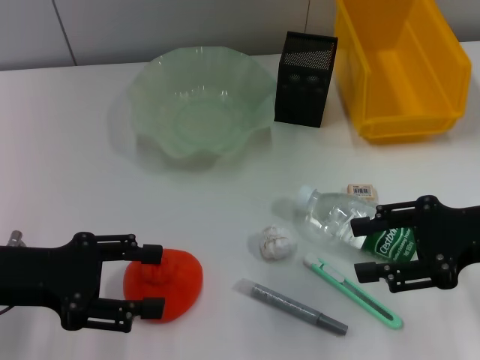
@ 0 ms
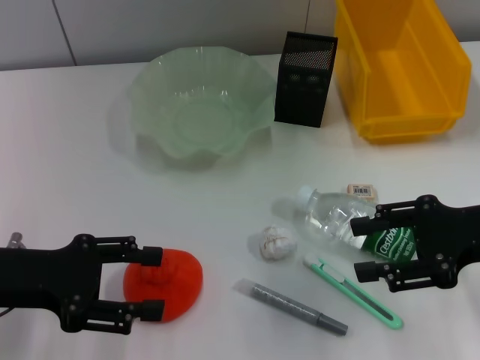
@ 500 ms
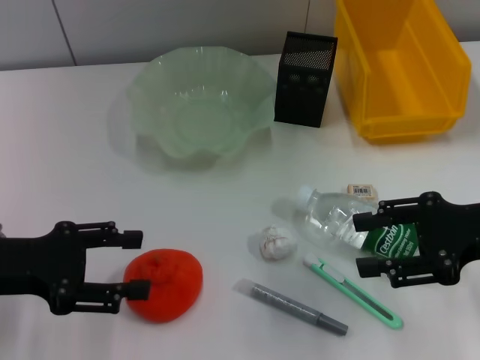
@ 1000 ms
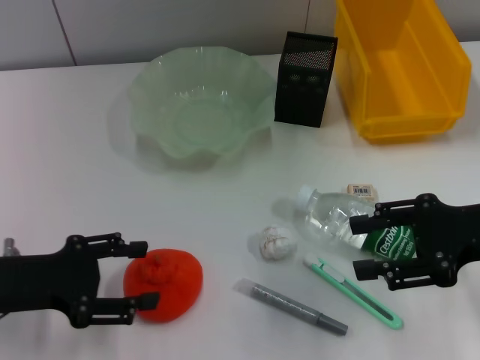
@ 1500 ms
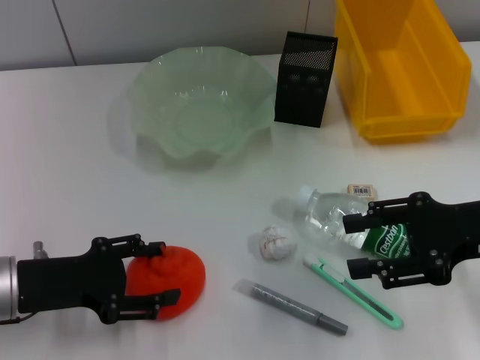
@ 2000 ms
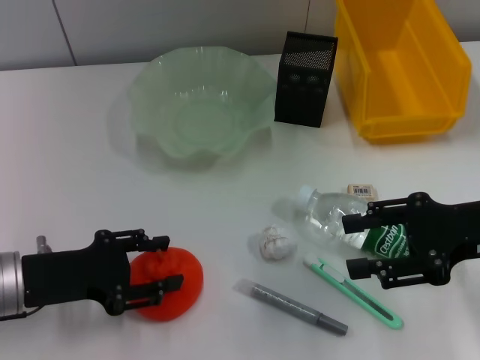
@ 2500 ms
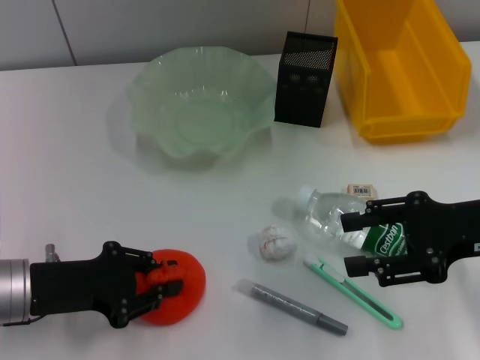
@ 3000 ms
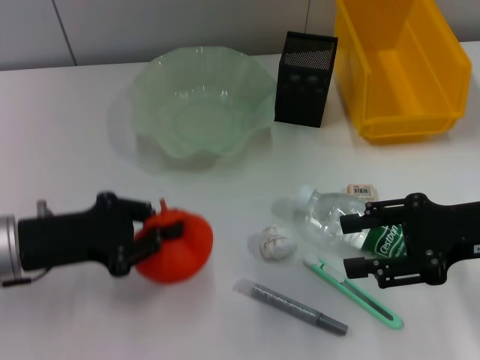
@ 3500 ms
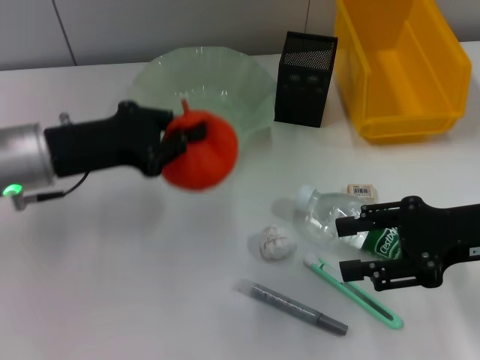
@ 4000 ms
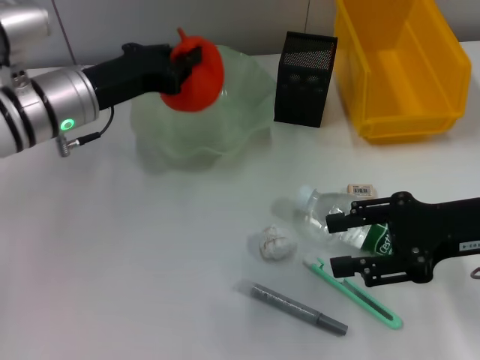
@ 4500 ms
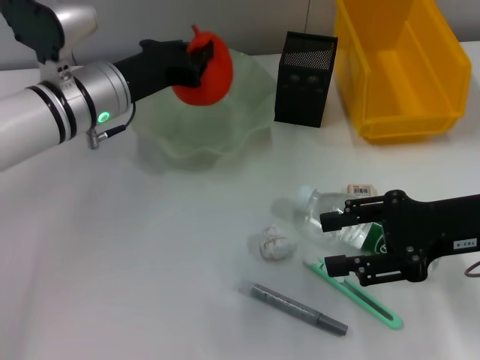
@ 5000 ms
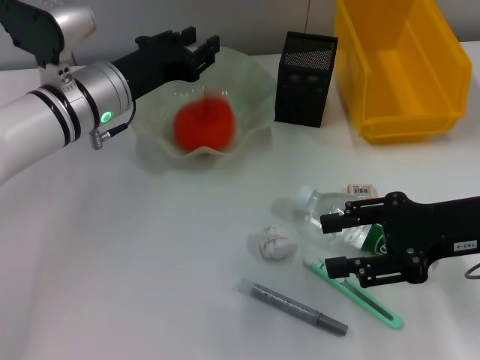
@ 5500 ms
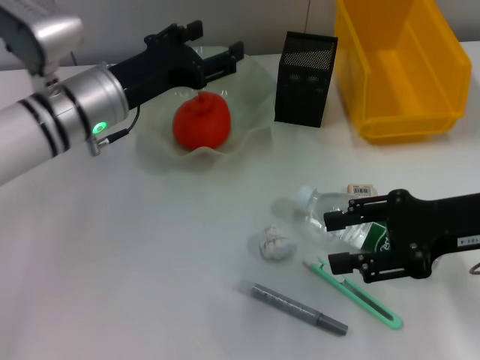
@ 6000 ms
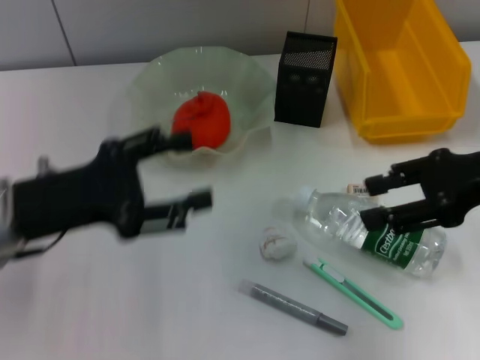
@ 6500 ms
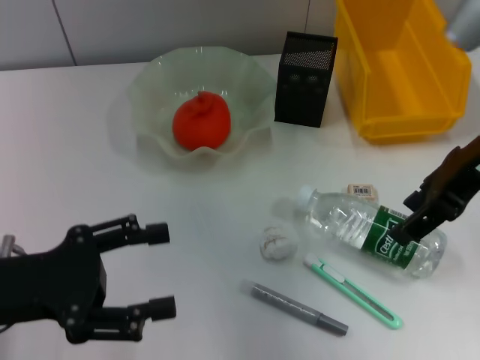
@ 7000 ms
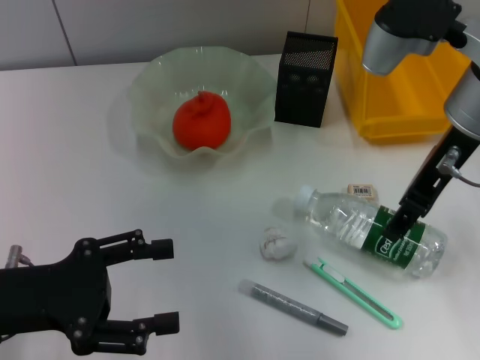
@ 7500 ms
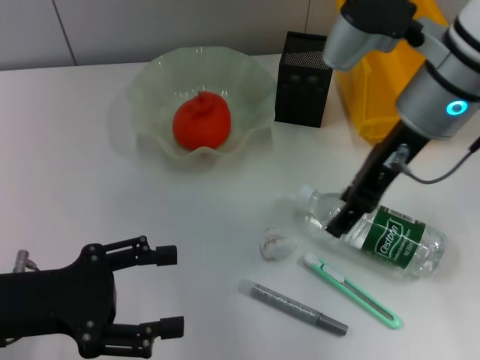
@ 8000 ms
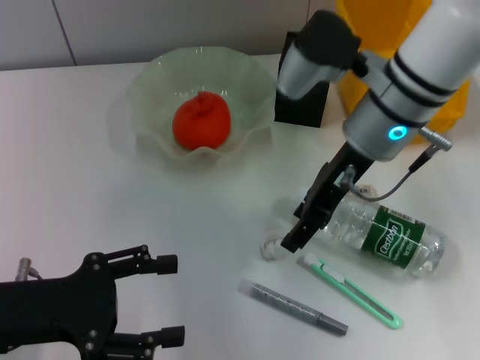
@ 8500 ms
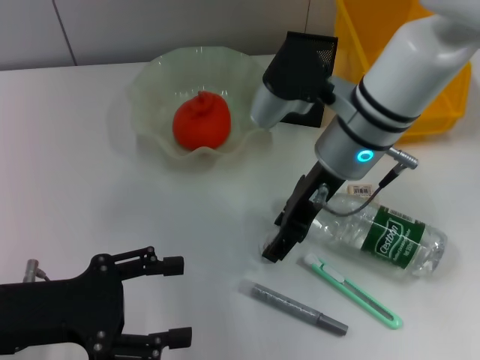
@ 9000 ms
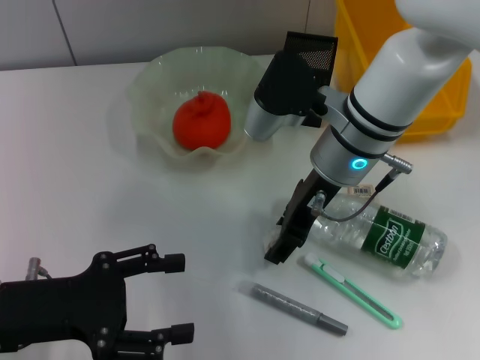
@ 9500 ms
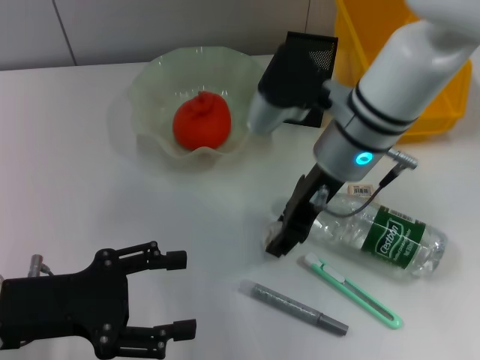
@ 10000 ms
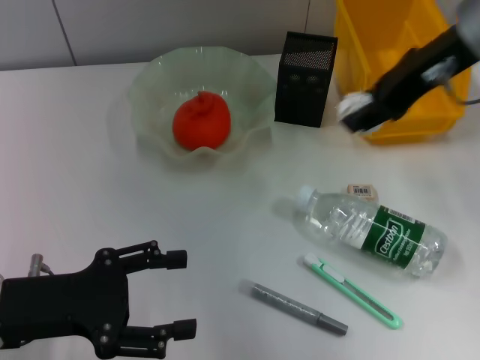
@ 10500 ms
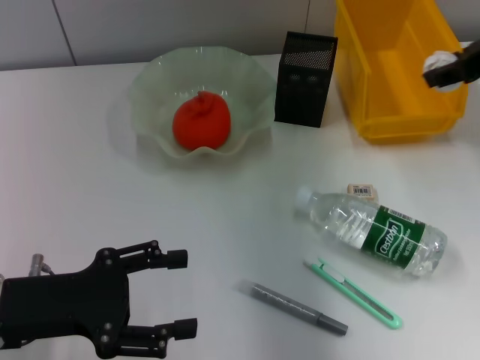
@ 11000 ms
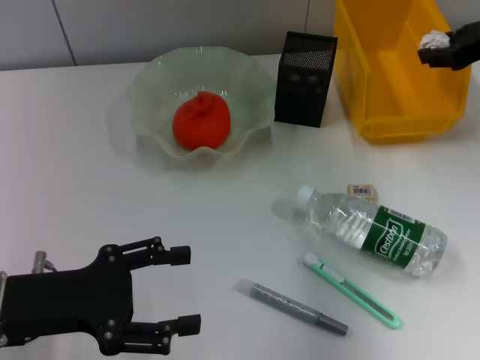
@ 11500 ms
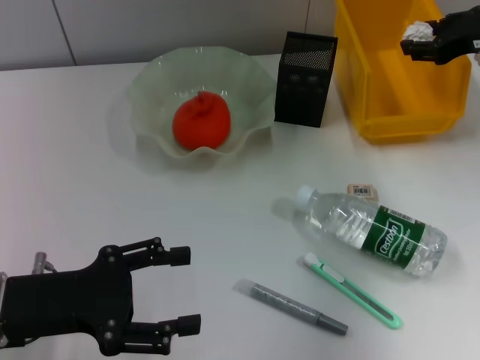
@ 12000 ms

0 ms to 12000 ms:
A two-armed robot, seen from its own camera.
Step, 0 ms to 3000 ms: Grab the orange with the left hand.
Step, 3500 ms to 5500 ms: Place the orange into the fruit bowl with the left hand.
Step, 6000 ms to 9500 ms: Grab the paper ball with the right hand.
0 ms to 2000 ms: The left gripper moves roughly 5 cm.
2000 ms to 4000 ms: The left gripper goes roughly 10 cm forward and upward, and closes up.
4000 ms to 6000 ms: The left gripper travels to the right and forward by some 10 cm, and opens up.
6000 ms to 8000 ms: The left gripper is displaced backward and to the left by some 20 cm. Meanwhile the right gripper travels to the left, forward and upward by about 15 cm.
8000 ms to 10000 ms: The right gripper moves downward and to the left, roughly 10 cm.
10000 ms to 12000 ms: The right gripper travels to the right by approximately 20 cm.

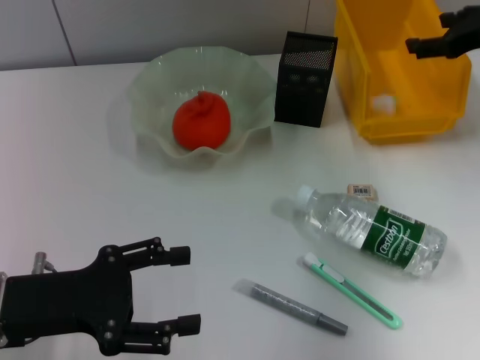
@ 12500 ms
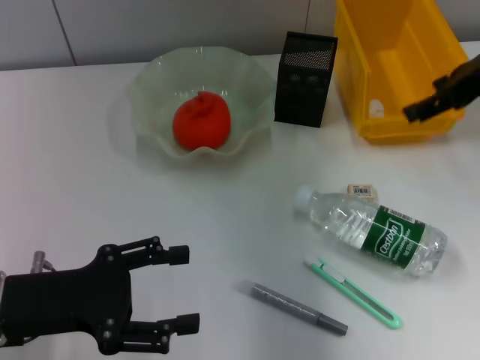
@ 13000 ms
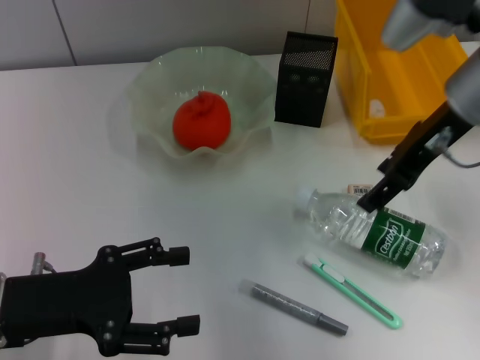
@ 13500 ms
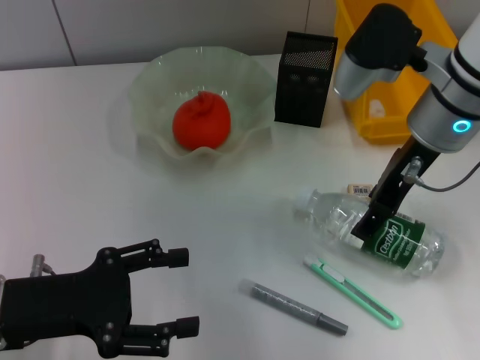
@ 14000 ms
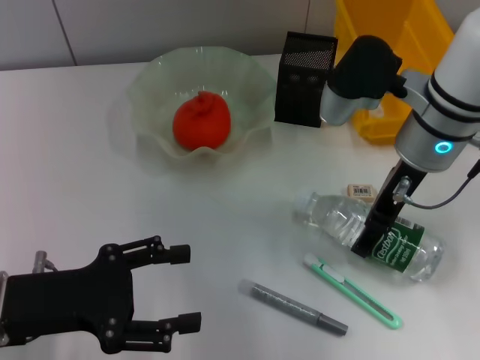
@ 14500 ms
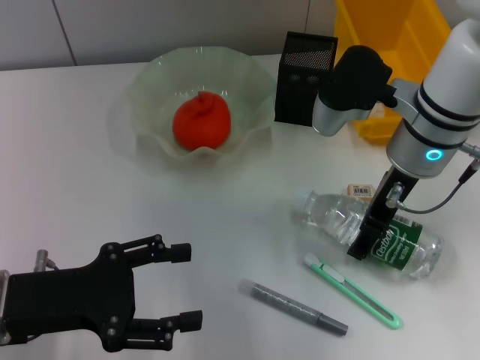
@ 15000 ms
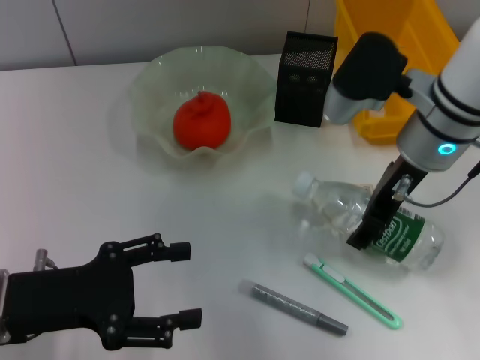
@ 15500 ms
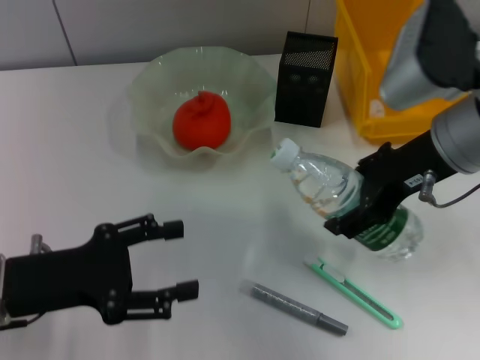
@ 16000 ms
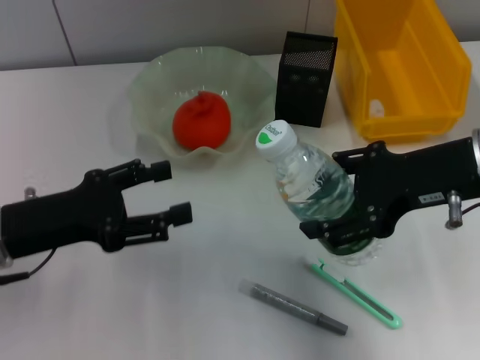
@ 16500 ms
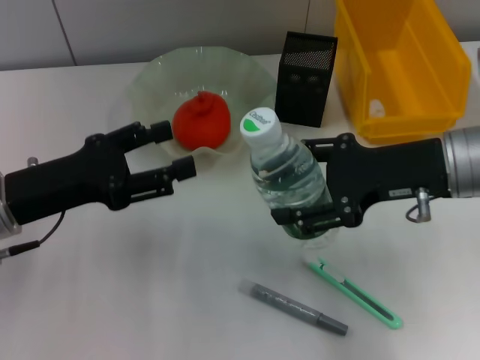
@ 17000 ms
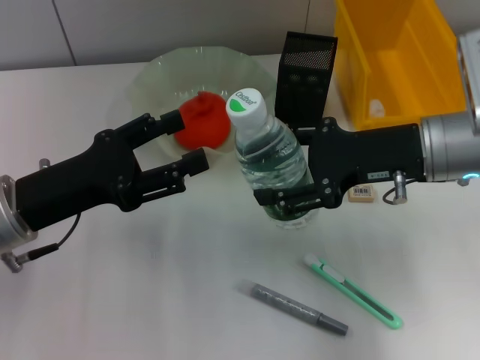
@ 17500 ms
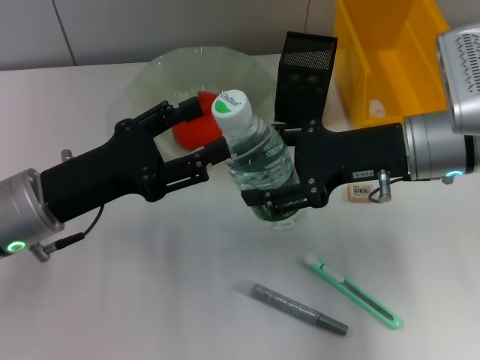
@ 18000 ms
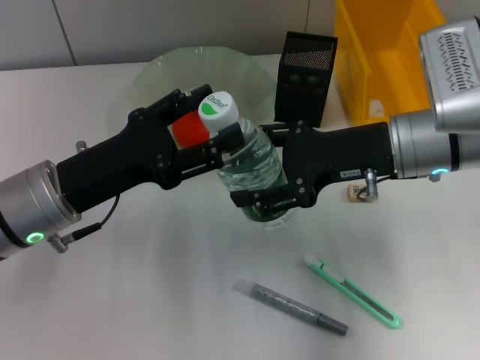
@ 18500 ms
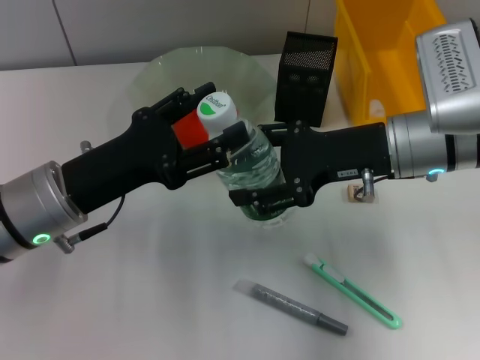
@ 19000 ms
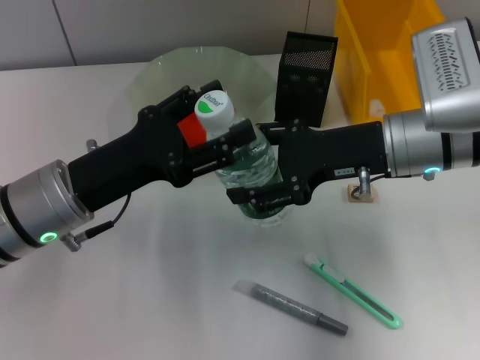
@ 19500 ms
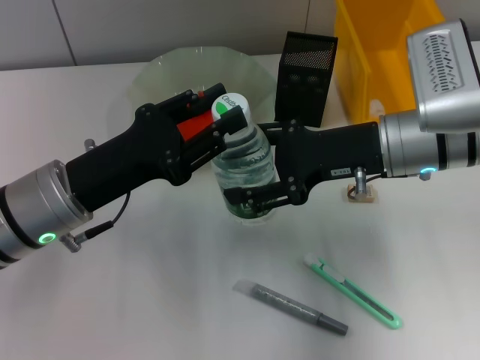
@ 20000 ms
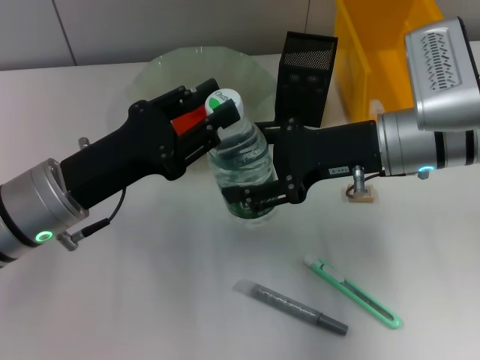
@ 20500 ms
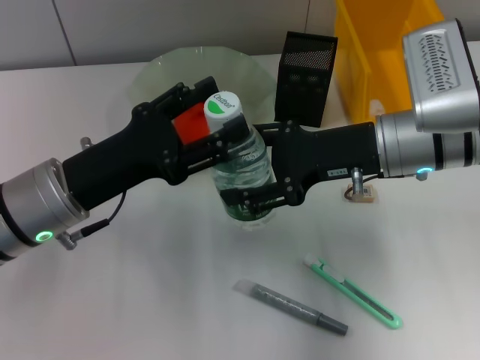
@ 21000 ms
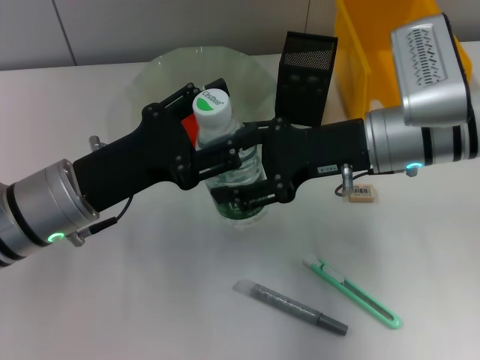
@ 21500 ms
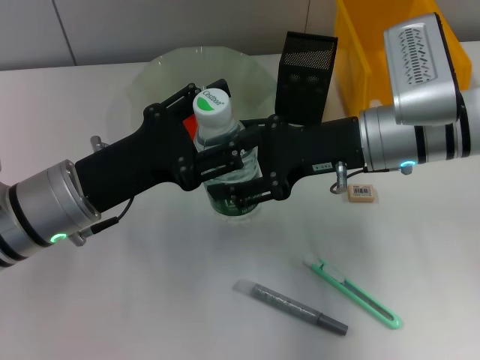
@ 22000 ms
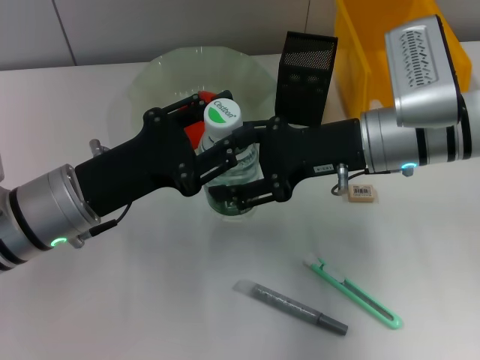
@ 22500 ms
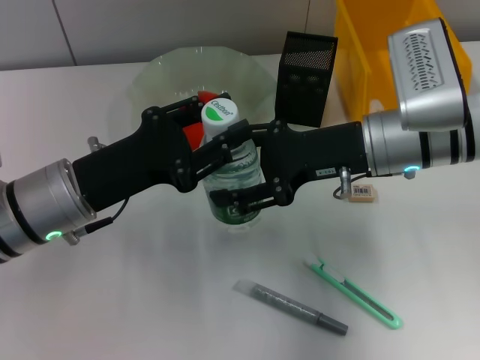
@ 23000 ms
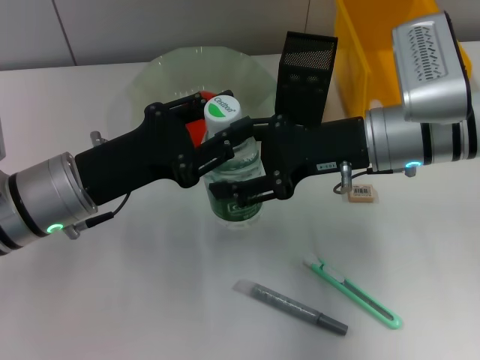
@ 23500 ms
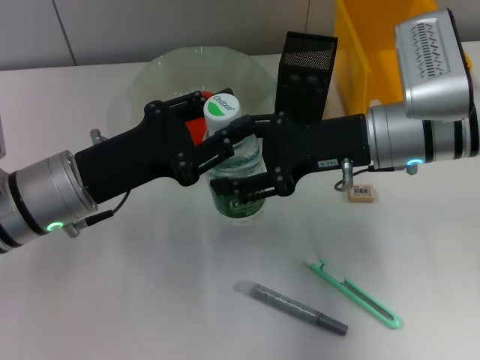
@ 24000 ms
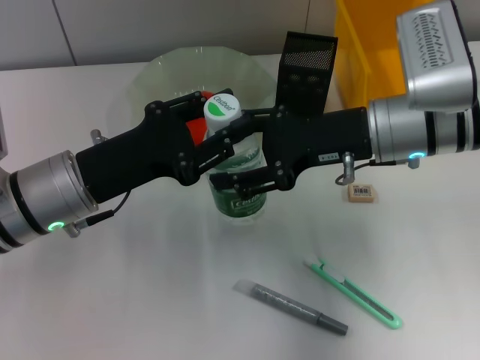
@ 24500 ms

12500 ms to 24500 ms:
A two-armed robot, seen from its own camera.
Step, 12500 ms to 15000 ms: Grab the water bottle with the right hand.
12500 ms to 14500 ms: The right gripper travels to the left by some 15 cm.
14500 ms to 16500 ms: The right gripper shifts roughly 10 cm backward and to the right.
16500 ms to 18500 ms: The left gripper heads to the right, covering some 5 cm, while the right gripper heads forward and downward, covering roughly 10 cm.
18500 ms to 20500 ms: The left gripper closes its fingers.
20500 ms to 22500 ms: The grippers stay close to where they were, moving slightly.
22500 ms to 24500 ms: Neither gripper changes place.

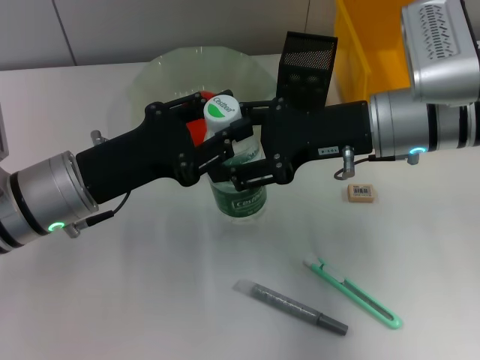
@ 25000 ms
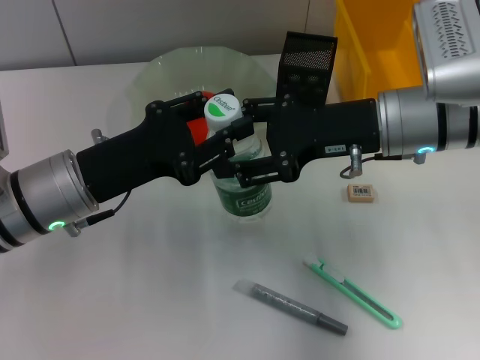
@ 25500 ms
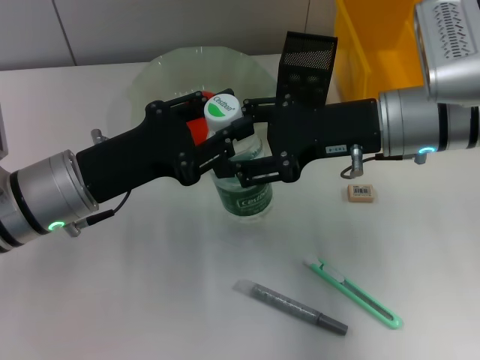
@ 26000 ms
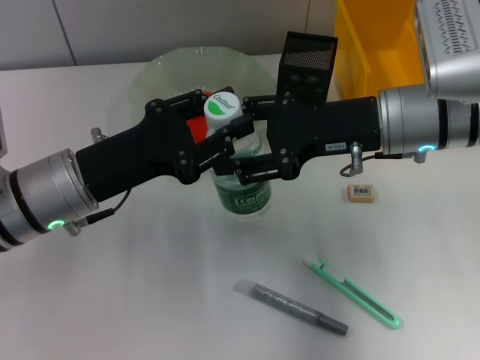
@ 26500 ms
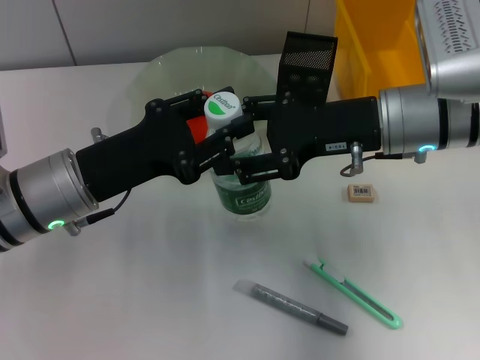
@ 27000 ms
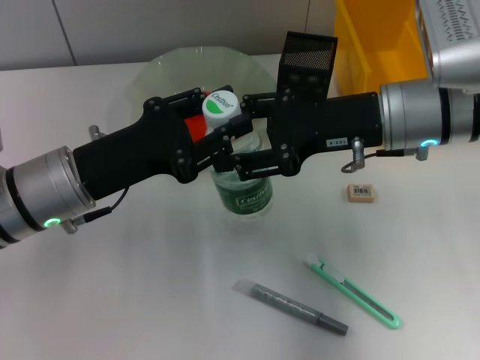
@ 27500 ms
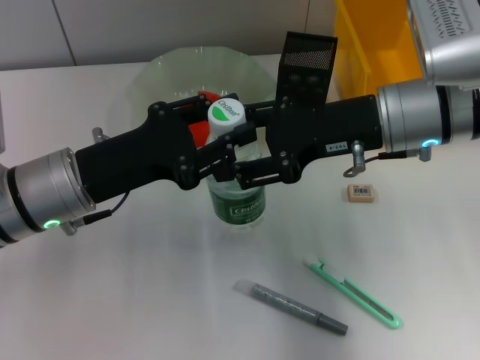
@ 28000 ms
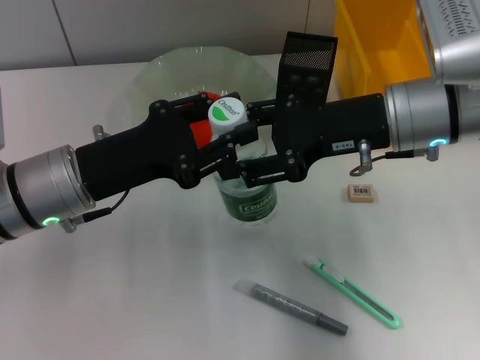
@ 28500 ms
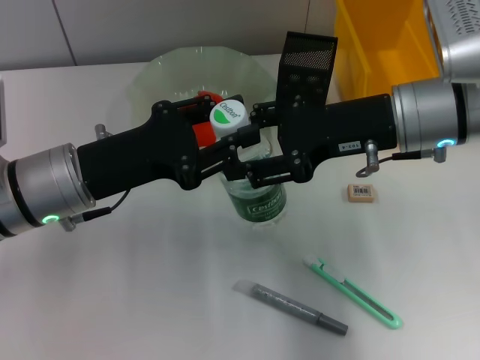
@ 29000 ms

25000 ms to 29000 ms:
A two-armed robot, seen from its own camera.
25000 ms to 27000 ms: The two grippers keep their place.
27000 ms to 29000 ms: The grippers stay close to where they were, moving slightly.
